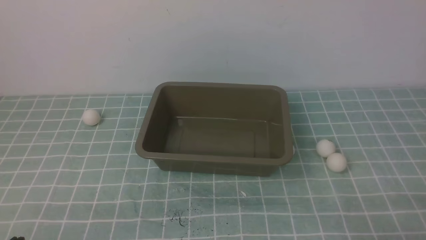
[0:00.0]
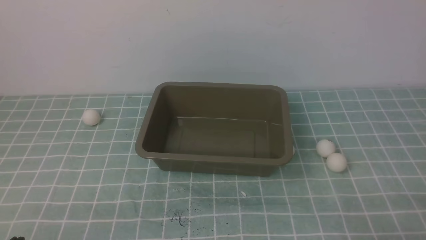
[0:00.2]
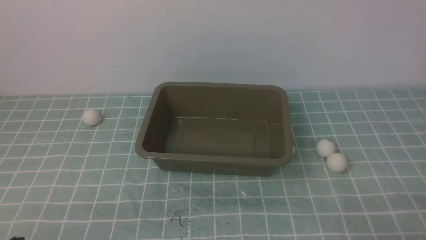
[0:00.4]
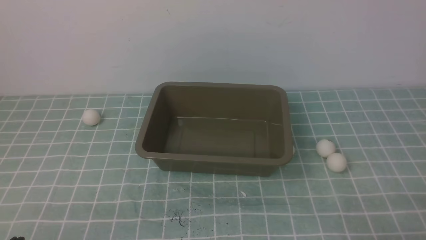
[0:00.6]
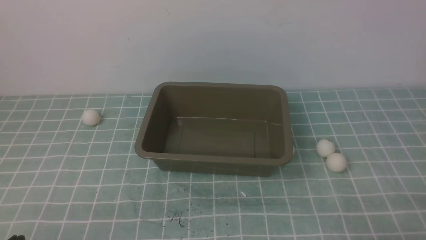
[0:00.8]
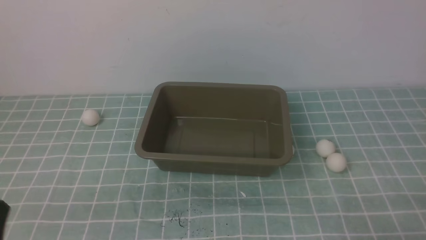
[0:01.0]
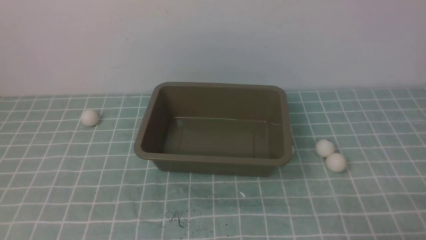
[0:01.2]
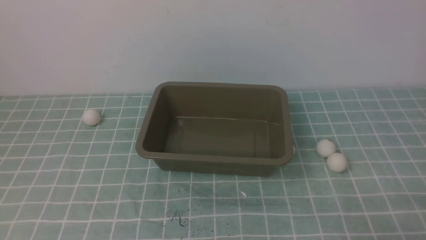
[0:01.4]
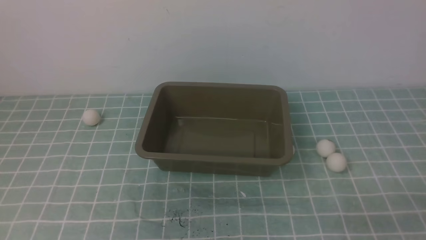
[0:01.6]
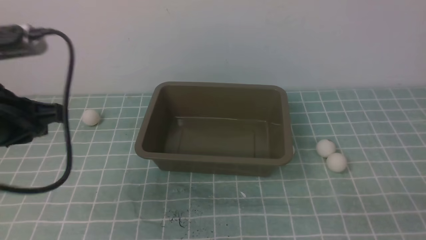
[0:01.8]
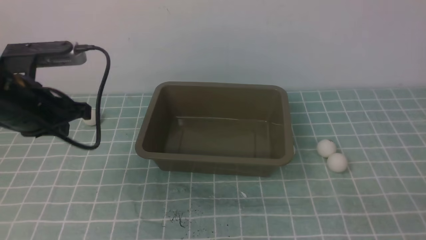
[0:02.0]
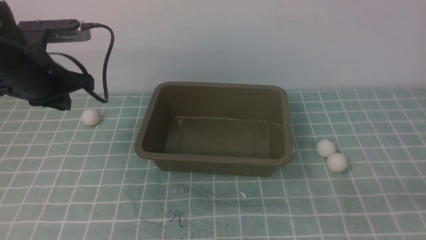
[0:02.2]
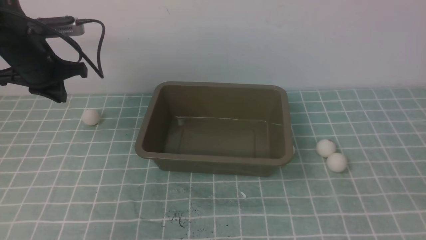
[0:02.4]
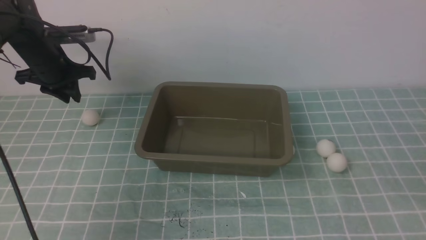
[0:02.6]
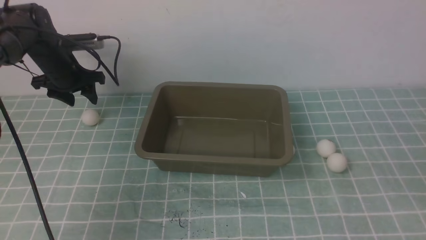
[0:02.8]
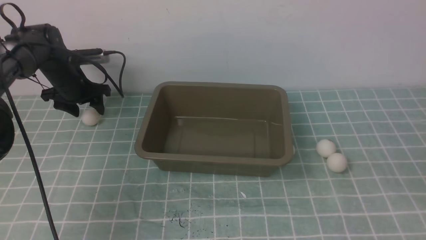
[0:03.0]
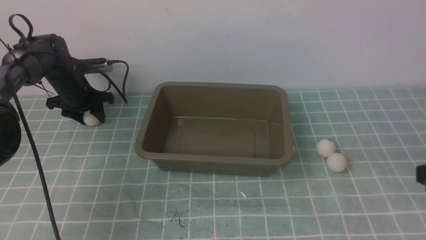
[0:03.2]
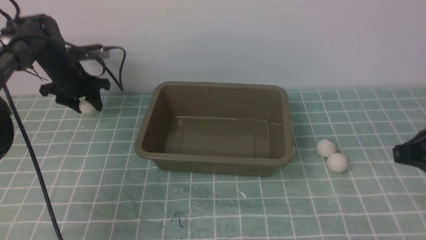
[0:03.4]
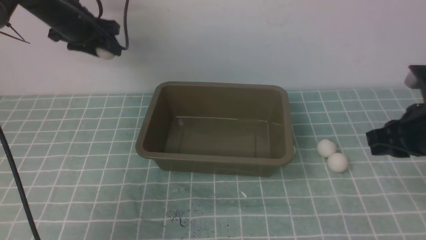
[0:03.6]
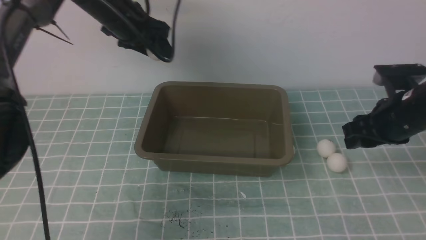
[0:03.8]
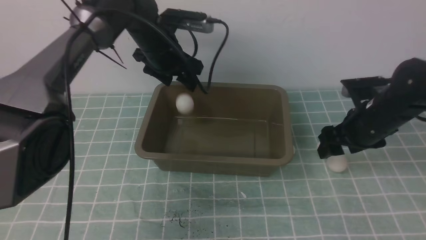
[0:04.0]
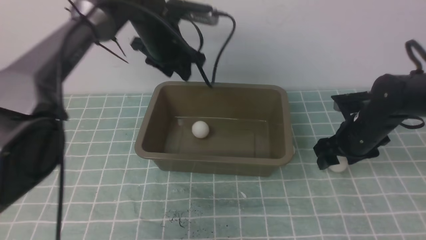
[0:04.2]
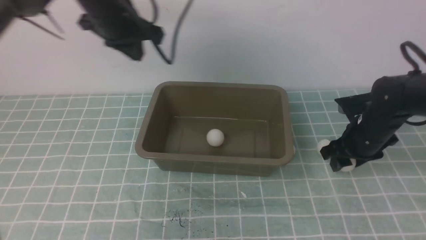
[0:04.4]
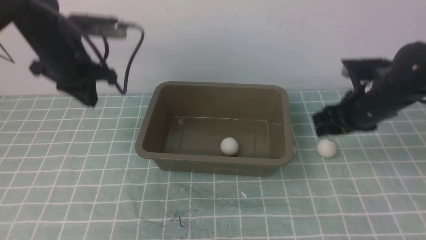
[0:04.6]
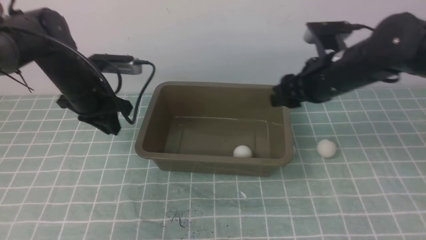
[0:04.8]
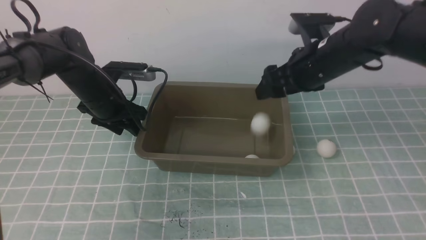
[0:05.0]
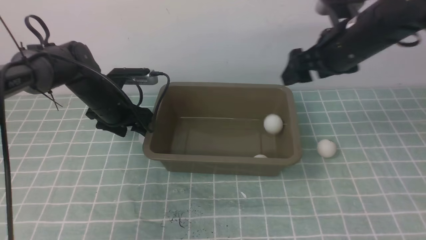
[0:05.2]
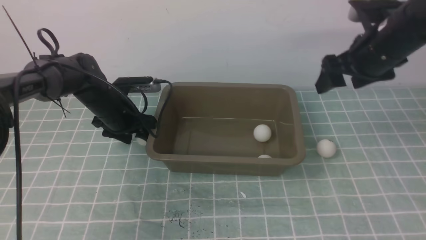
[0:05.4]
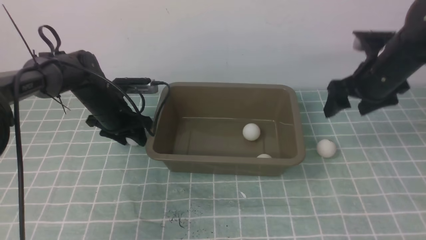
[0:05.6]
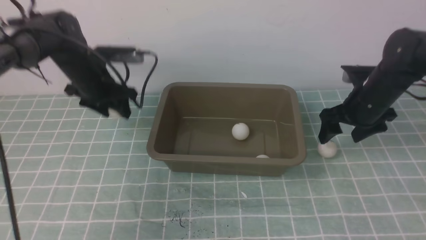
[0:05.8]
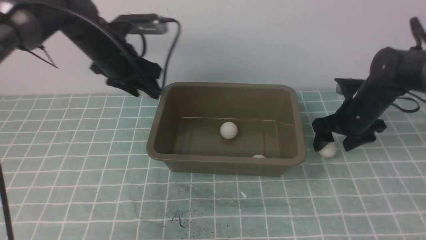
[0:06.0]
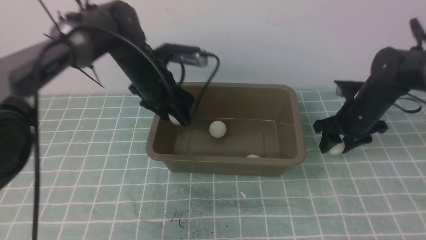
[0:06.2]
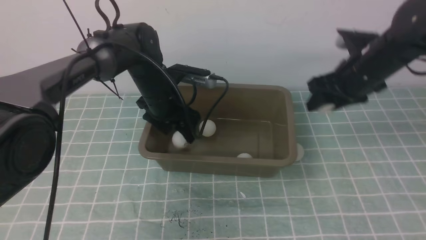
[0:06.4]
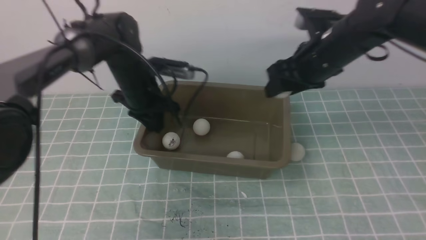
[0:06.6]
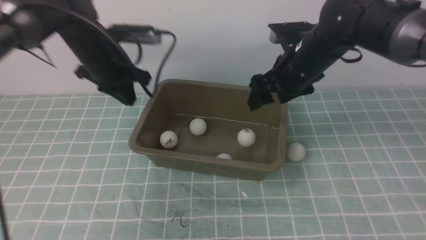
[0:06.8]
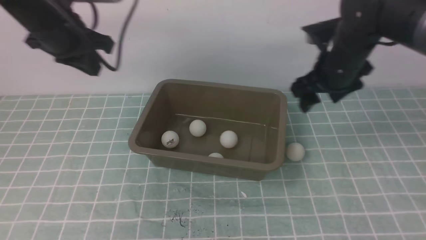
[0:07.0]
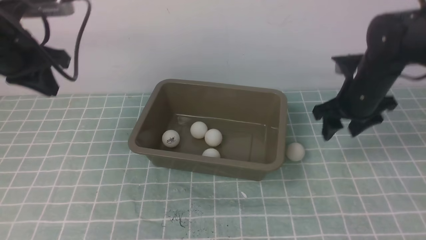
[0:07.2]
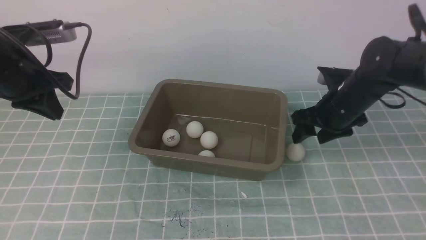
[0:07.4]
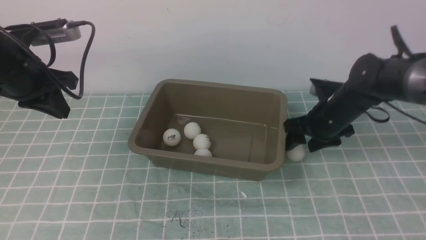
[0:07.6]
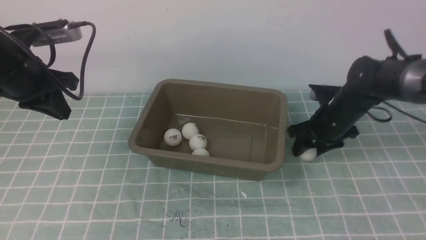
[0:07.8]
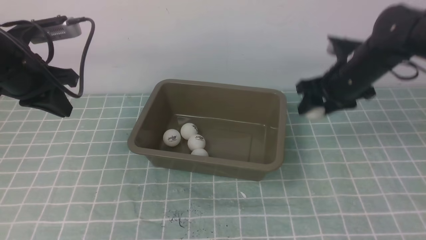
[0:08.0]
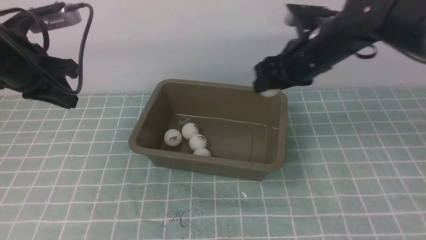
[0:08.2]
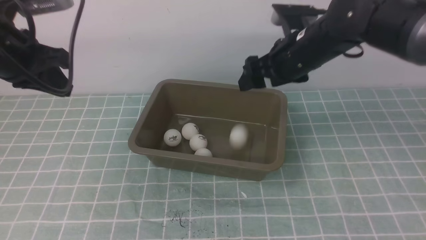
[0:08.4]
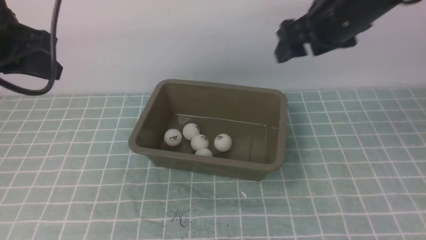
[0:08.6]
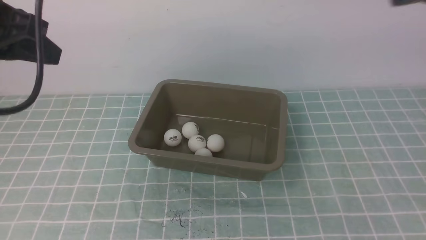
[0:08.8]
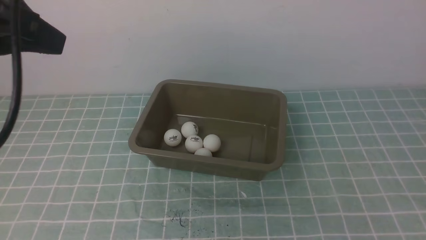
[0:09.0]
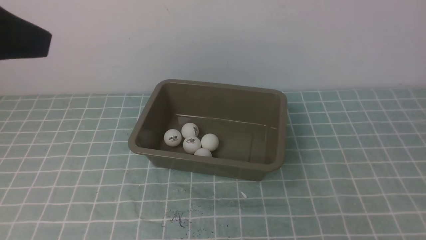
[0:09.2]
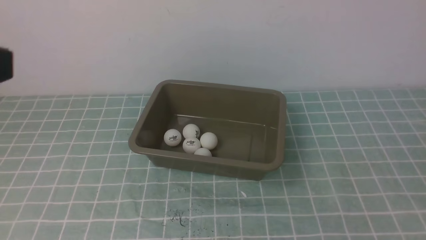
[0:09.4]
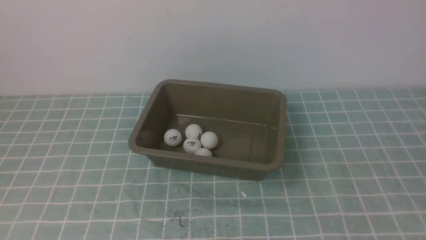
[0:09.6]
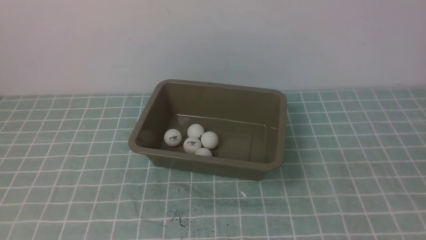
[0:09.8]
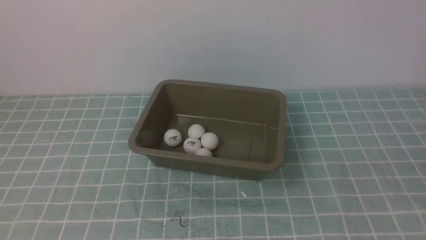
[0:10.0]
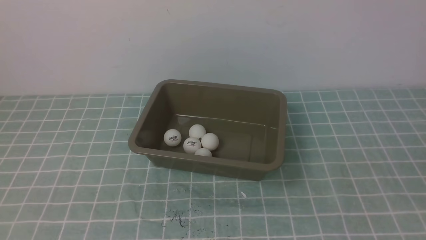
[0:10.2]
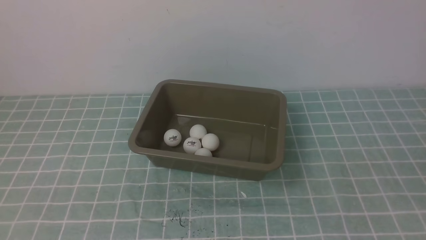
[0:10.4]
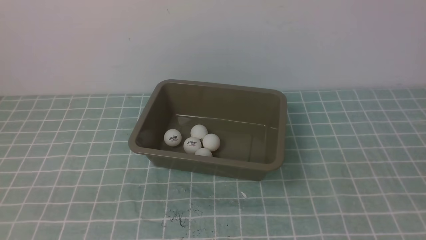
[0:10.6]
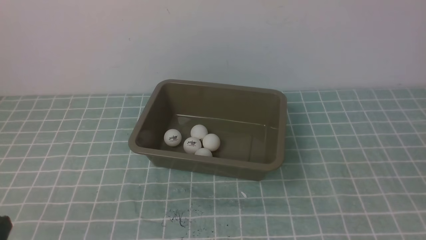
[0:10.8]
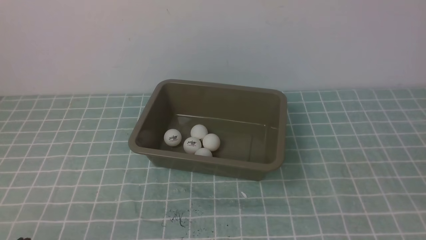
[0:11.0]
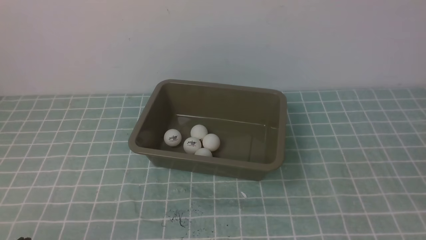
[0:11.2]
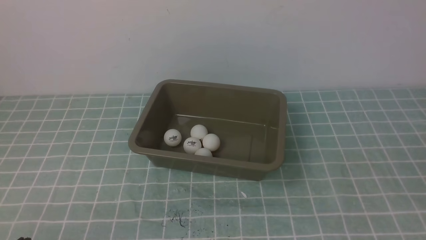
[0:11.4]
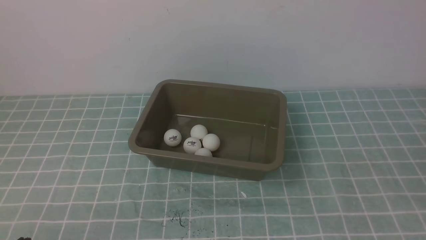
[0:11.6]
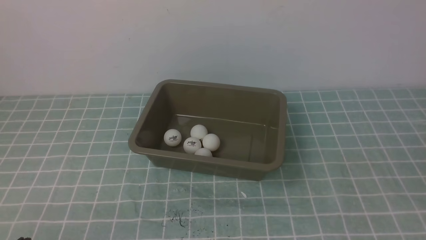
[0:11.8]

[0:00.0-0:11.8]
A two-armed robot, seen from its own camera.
Step, 0:00.0 to 0:03.4: use the left arm to clamp the table tennis ball closest to it.
Step, 0:03.6 to 0:04.0: use the left arm to put the table tennis ball into the box.
Step, 0:04.2 to 0:04.4: use the right arm to clamp the table tennis ball closest to it.
Step, 0:04.8 to 0:05.2: use the right arm to put the table tennis ball into the box.
Step, 0:05.4 to 0:05.6: use the left arm to clamp the table tennis ball closest to it.
Step, 0:05.8 to 0:06.4: use the left arm to put the table tennis ball into the box.
Step, 0:06.6 to 0:06.8: use the right arm to put the table tennis ball into the box.
Step, 0:07.0 to 0:07.8: use the right arm to clamp the table tennis ball closest to it.
Step, 0:08.0 to 0:08.4: use the right arm to put the table tennis ball into the box.
0:01.4 to 0:03.0: The left gripper shifts about 50 cm forward and downward, and opens. Meanwhile the right gripper is displaced upward and forward by some 15 cm.
0:03.0 to 0:04.4: The right gripper moves forward and downward, approximately 25 cm, and opens up; the left gripper goes about 20 cm upward, to the right and backward, and closes its fingers.
0:04.4 to 0:06.0: The right gripper reaches approximately 10 cm upward, then returns, while the left gripper moves downward, some 5 cm, and opens.
0:06.0 to 0:07.4: The left gripper heads to the left, backward and upward, covering roughly 15 cm, and closes; the right gripper travels upward and back again, some 10 cm each way.
0:07.4 to 0:08.8: The left gripper shifts approximately 15 cm upward, backward and to the right. Meanwhile the right gripper heads upward and backward, covering approximately 35 cm, and closes up.
0:08.8 to 0:10.4: Both grippers travel together backward and downward, approximately 25 cm.

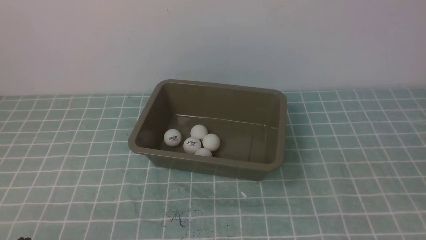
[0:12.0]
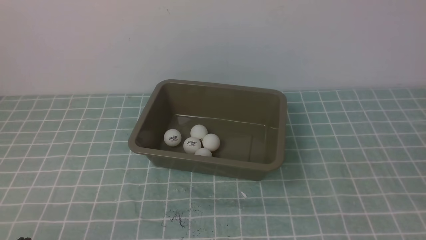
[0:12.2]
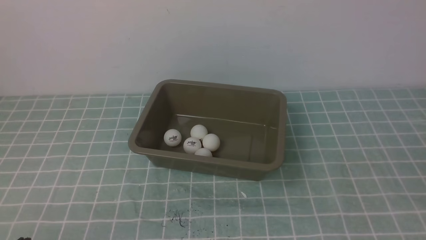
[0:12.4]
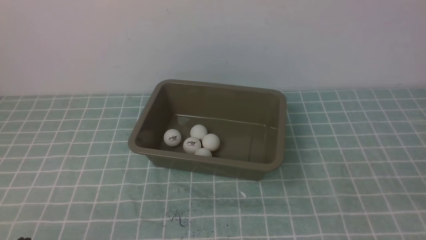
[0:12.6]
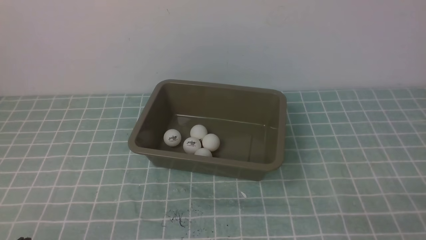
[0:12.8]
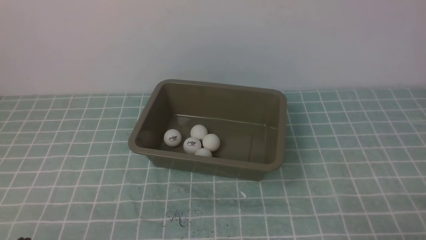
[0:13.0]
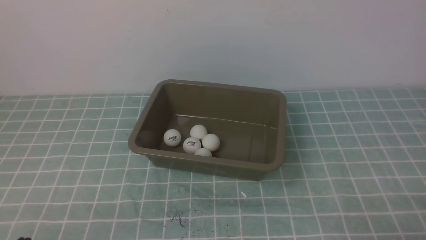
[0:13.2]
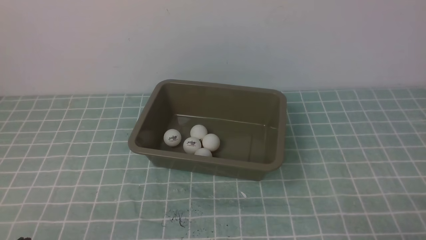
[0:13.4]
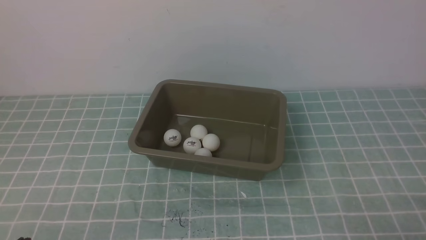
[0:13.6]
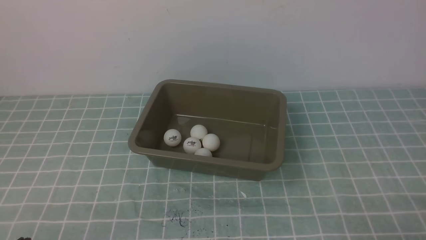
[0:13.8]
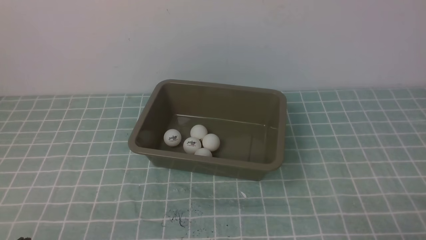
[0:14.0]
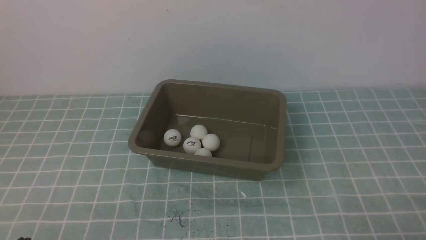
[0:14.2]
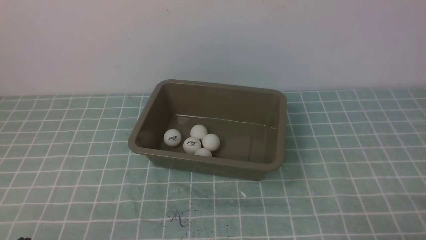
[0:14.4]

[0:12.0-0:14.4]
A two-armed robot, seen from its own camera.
0:13.2 to 0:14.4: Both grippers stay put.
